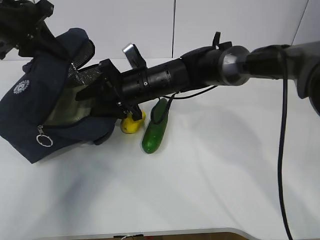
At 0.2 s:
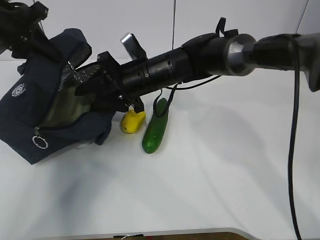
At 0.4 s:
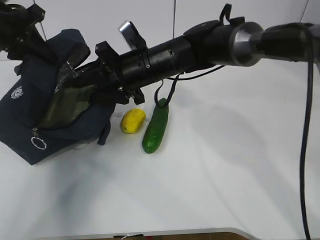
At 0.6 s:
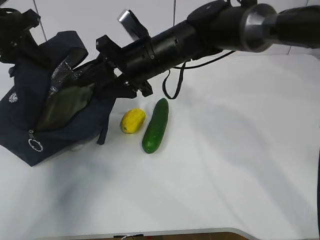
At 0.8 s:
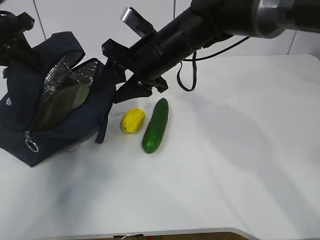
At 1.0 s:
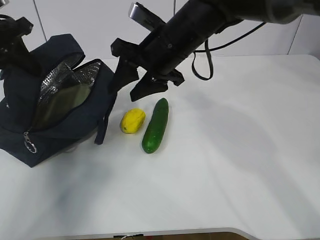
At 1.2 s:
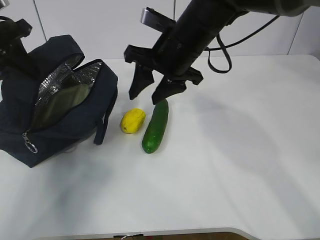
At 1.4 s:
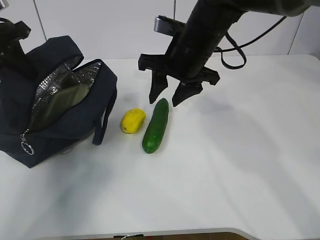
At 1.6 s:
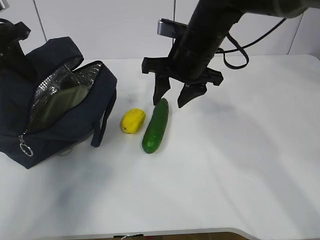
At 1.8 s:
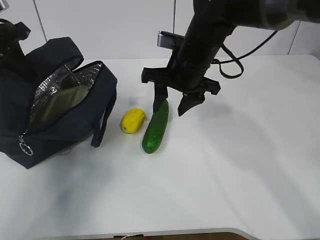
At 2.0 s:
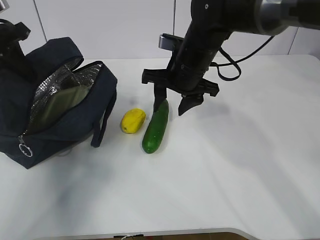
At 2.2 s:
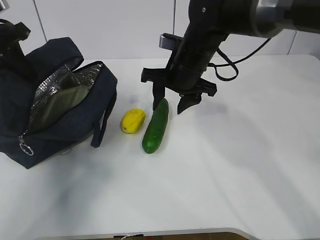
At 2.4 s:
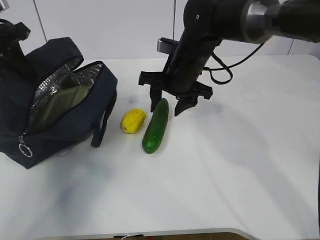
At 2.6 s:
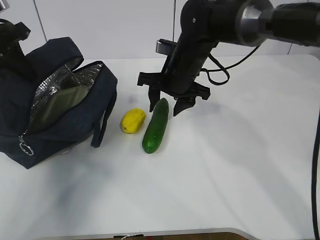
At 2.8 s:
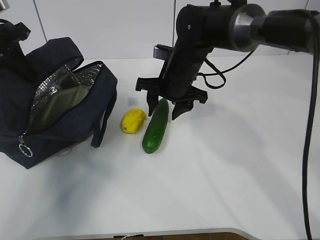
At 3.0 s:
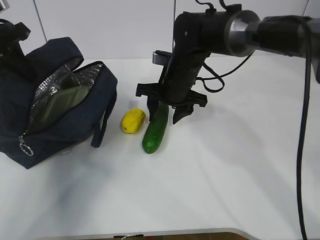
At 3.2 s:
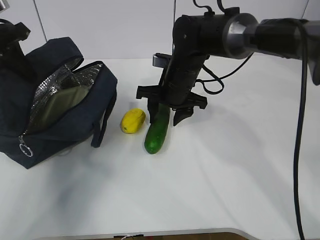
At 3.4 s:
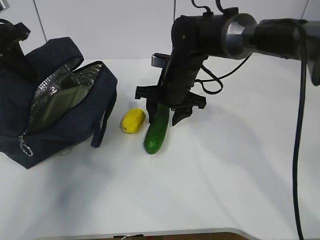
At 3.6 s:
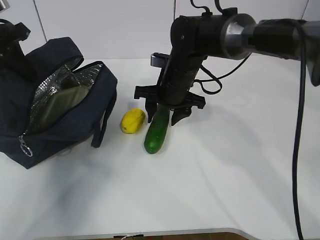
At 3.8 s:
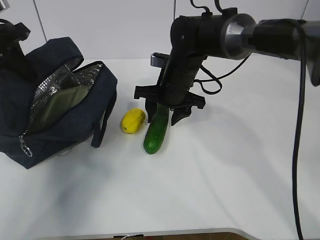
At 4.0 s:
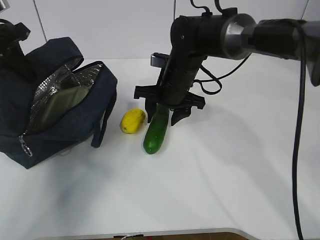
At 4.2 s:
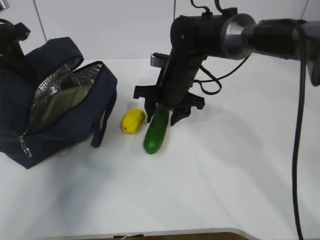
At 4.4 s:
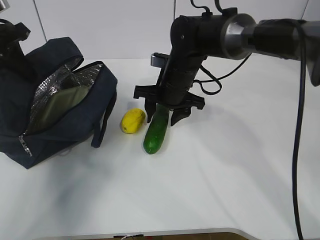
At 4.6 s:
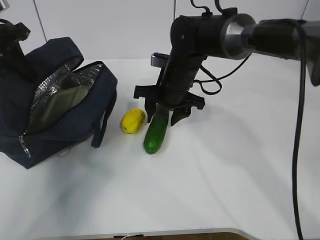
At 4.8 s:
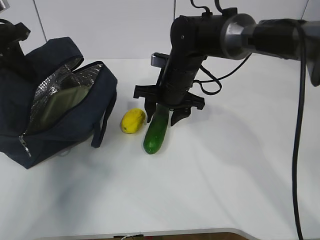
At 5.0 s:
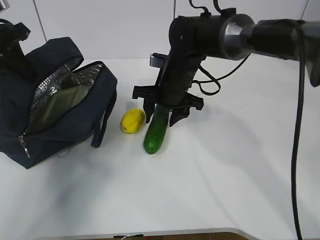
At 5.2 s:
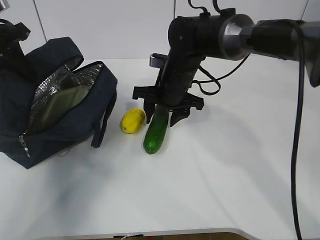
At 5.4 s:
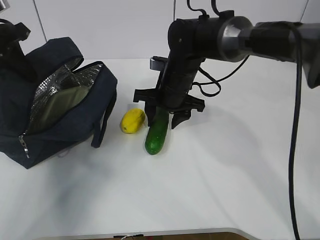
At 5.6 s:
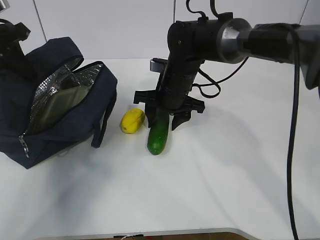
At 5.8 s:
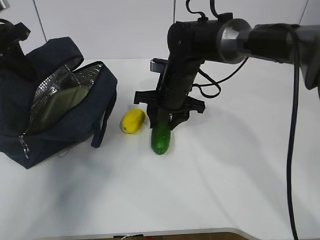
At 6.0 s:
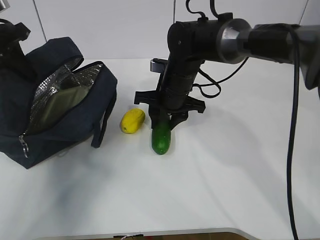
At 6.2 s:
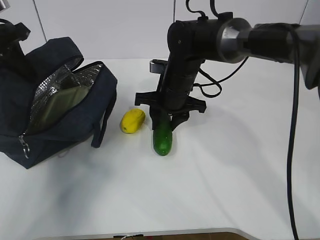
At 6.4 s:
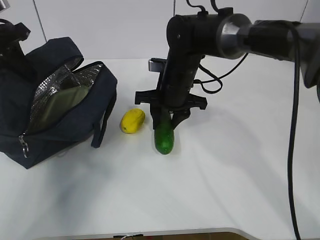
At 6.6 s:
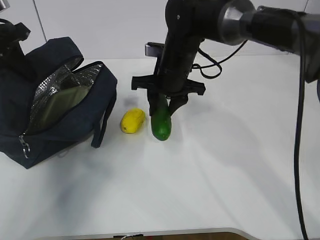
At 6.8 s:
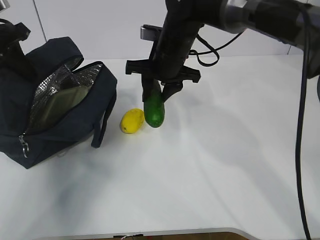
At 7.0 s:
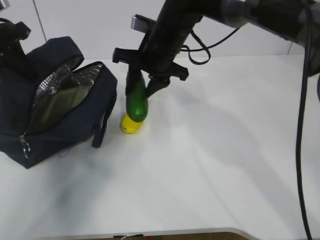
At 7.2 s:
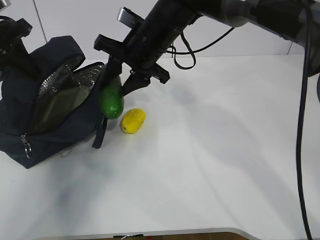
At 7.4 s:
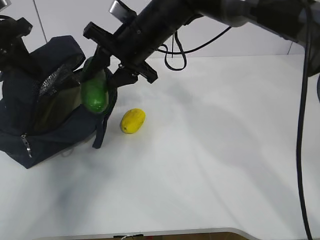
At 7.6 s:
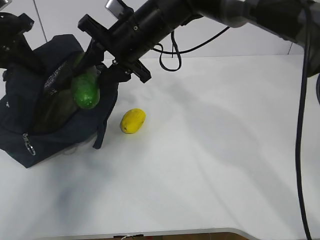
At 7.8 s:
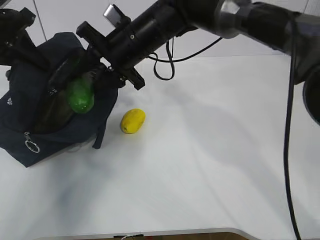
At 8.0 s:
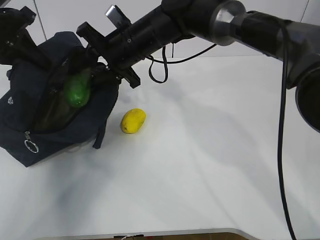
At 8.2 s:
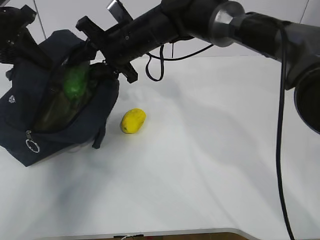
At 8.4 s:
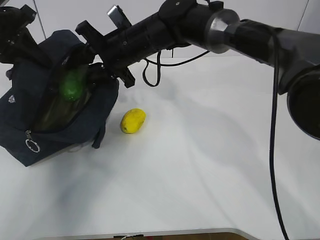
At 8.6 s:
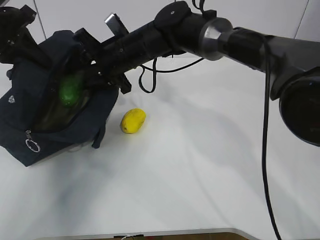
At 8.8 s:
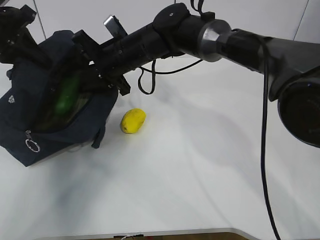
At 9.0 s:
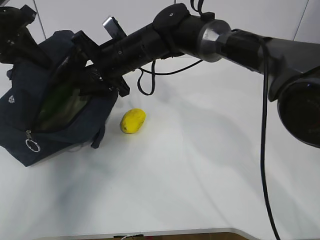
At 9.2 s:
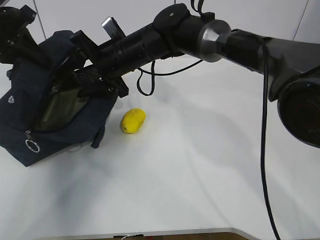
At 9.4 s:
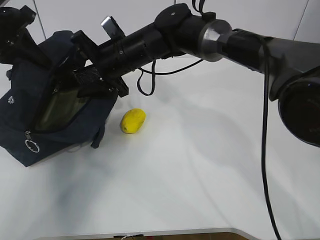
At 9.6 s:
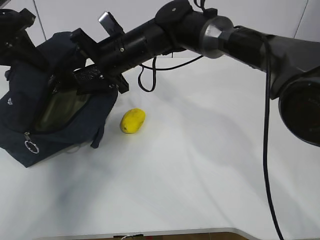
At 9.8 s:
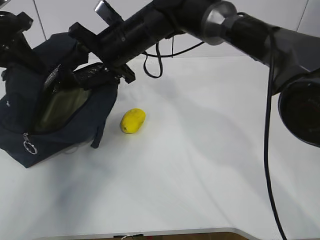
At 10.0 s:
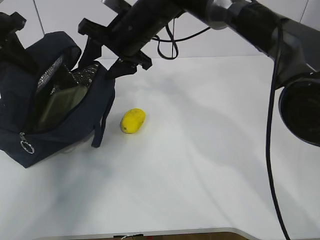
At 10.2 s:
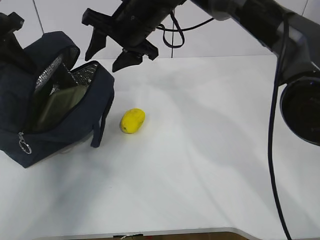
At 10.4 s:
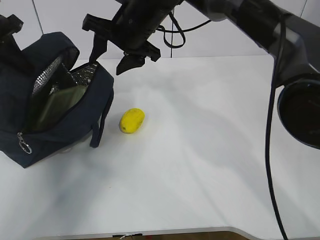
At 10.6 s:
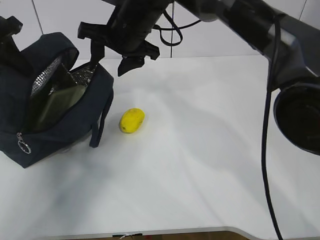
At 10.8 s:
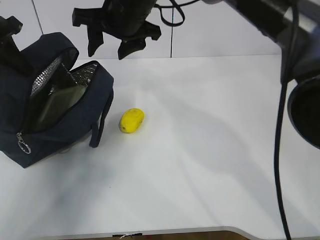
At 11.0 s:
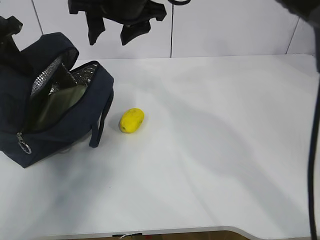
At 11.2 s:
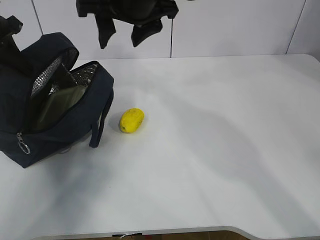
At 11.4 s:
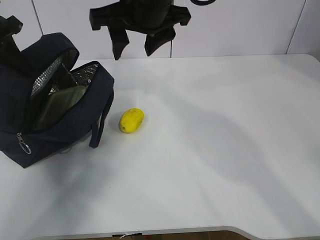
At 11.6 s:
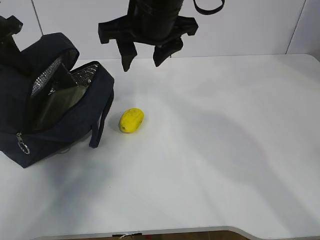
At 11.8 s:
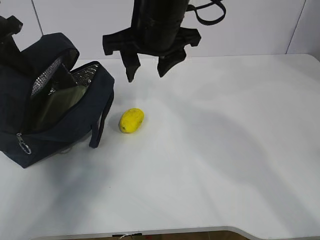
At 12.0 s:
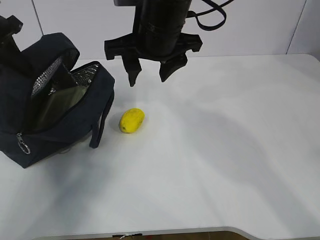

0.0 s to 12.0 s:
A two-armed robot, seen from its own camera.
Step, 1.2 to 3.4 s: Place it into the bag with your right hand.
Step, 3.8 to 10.4 s: Grab the lemon with your right hand.
0.0 to 1.6 s: The right gripper shifts approximately 10 cm upward and to the right.
1.6 to 3.0 s: The right gripper is displaced downward by some 5 cm.
3.0 to 4.4 s: Both grippers stay about where they are.
4.4 to 6.0 s: Both grippers stay put.
6.0 to 7.6 s: The right gripper shifts roughly 10 cm upward and to the left.
7.6 to 9.0 s: The right gripper is displaced downward by roughly 5 cm.
9.0 to 10.4 s: The right gripper shifts some 5 cm upward.
10.4 to 12.0 s: The right gripper heads backward, covering roughly 10 cm.

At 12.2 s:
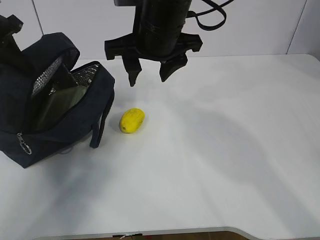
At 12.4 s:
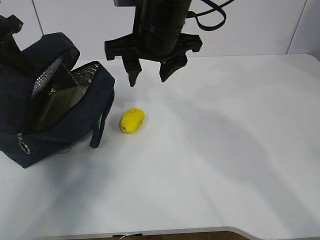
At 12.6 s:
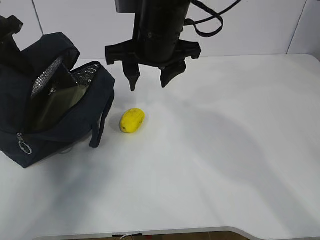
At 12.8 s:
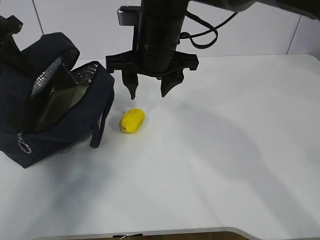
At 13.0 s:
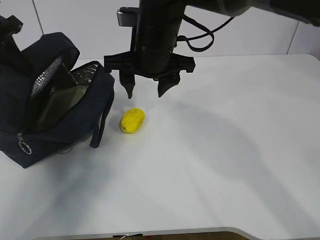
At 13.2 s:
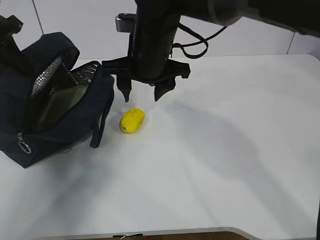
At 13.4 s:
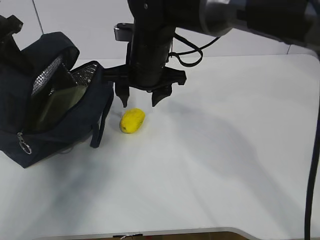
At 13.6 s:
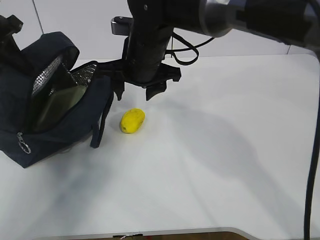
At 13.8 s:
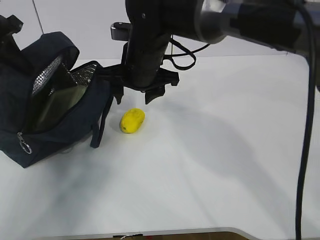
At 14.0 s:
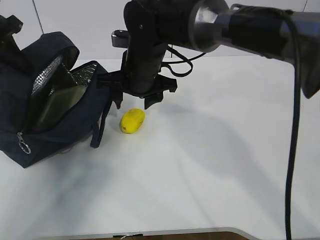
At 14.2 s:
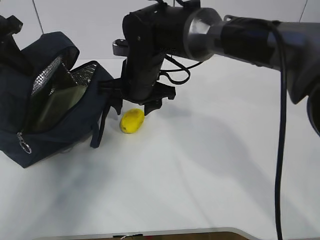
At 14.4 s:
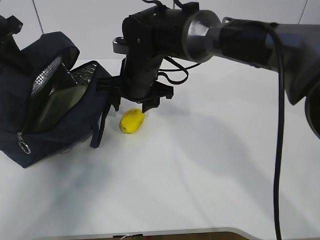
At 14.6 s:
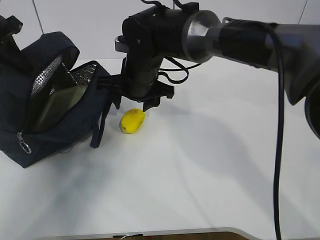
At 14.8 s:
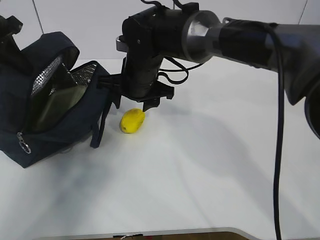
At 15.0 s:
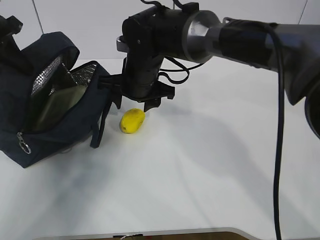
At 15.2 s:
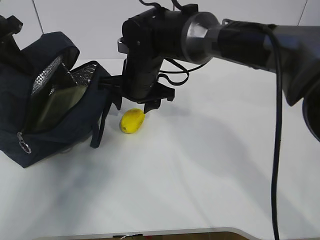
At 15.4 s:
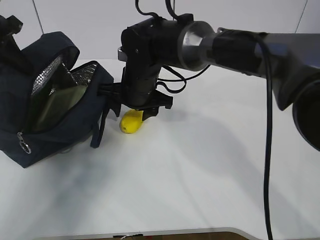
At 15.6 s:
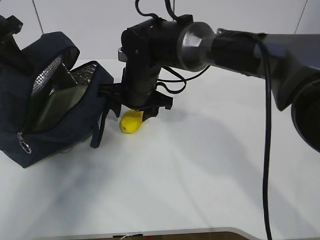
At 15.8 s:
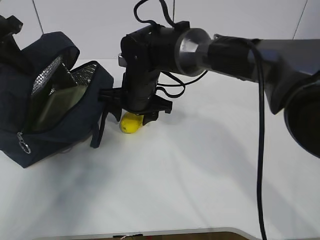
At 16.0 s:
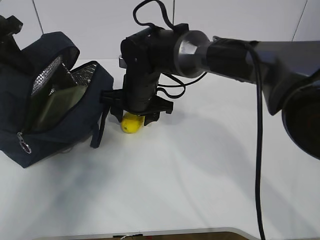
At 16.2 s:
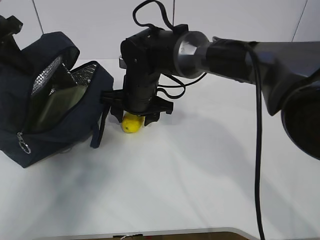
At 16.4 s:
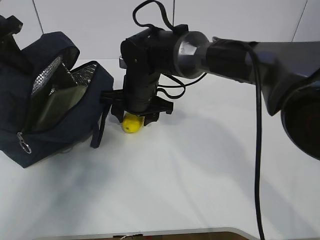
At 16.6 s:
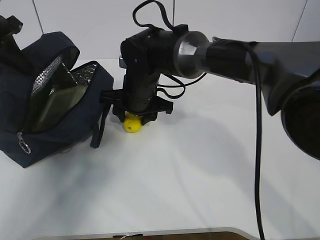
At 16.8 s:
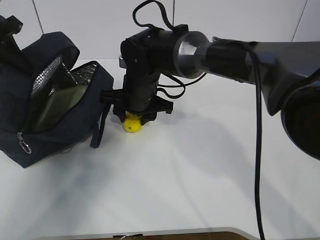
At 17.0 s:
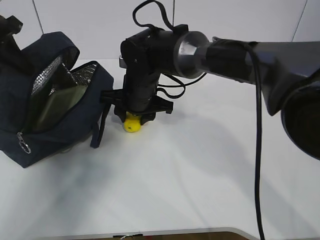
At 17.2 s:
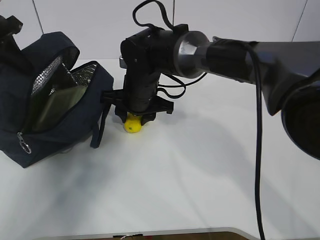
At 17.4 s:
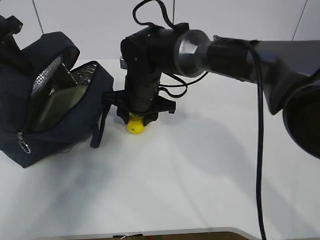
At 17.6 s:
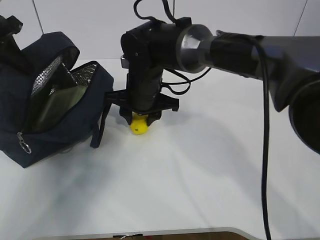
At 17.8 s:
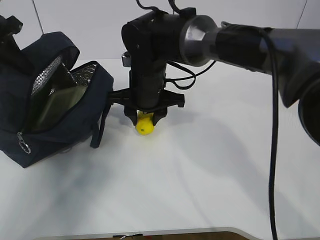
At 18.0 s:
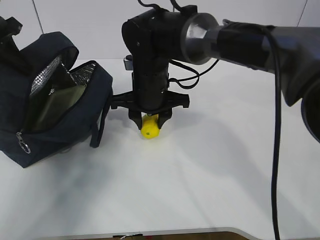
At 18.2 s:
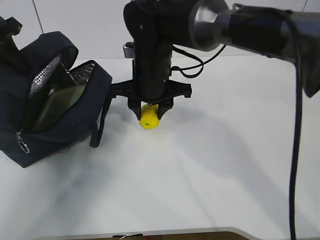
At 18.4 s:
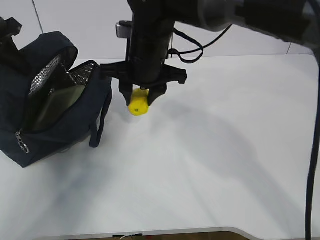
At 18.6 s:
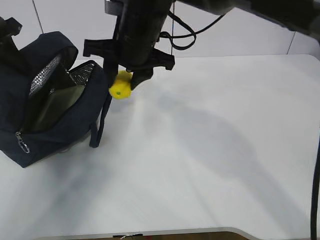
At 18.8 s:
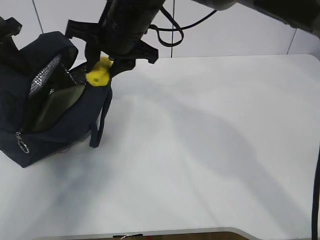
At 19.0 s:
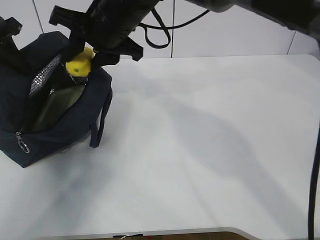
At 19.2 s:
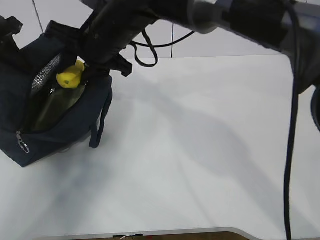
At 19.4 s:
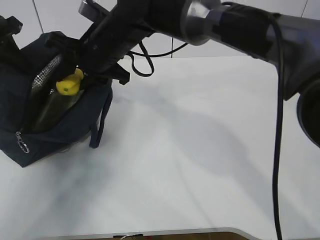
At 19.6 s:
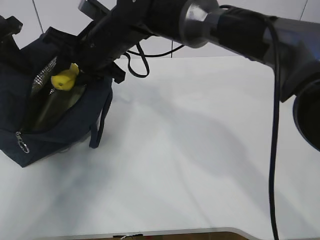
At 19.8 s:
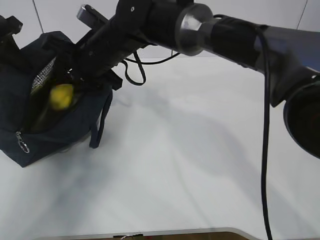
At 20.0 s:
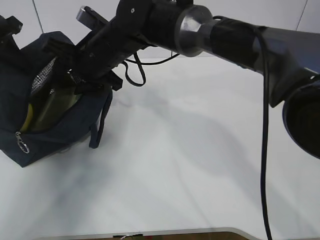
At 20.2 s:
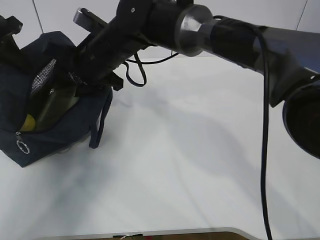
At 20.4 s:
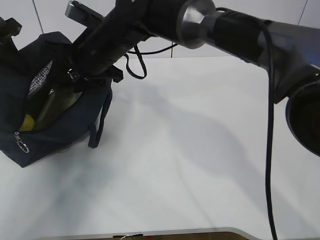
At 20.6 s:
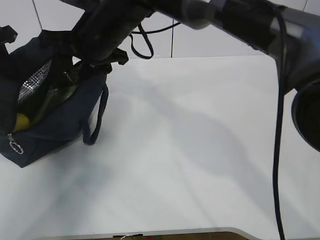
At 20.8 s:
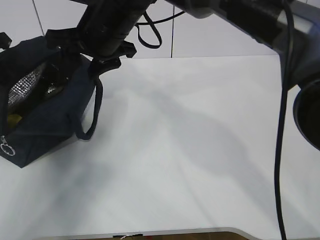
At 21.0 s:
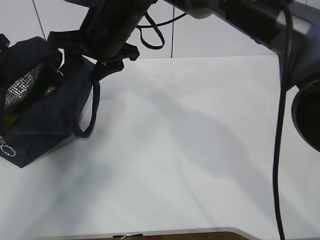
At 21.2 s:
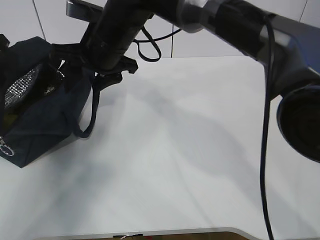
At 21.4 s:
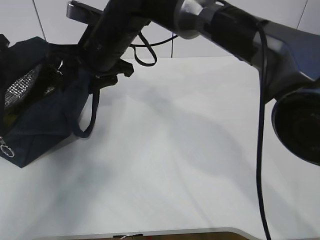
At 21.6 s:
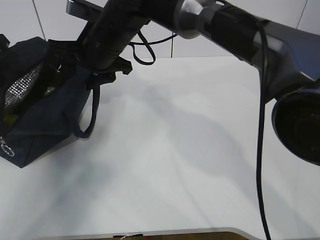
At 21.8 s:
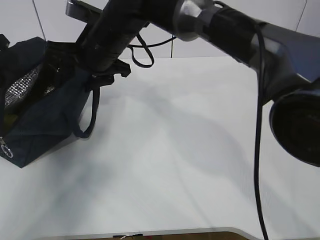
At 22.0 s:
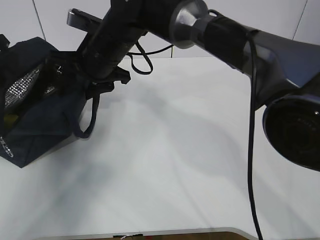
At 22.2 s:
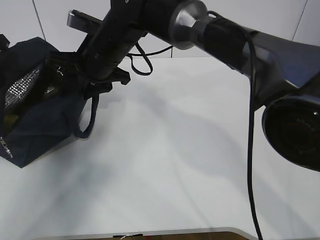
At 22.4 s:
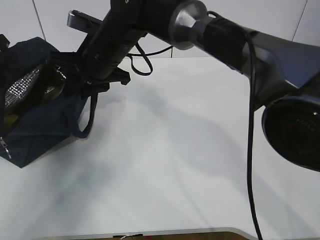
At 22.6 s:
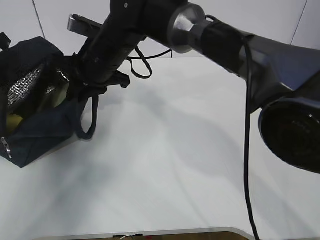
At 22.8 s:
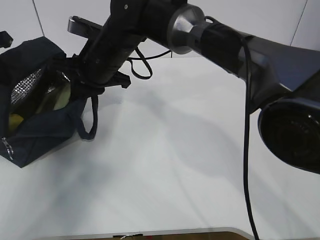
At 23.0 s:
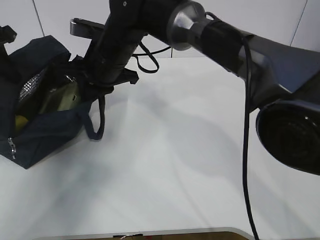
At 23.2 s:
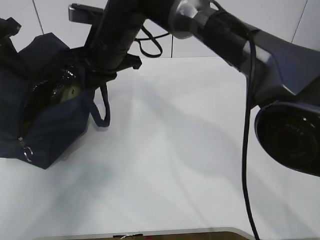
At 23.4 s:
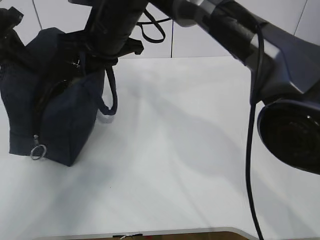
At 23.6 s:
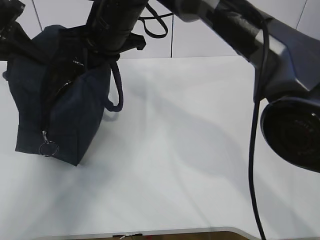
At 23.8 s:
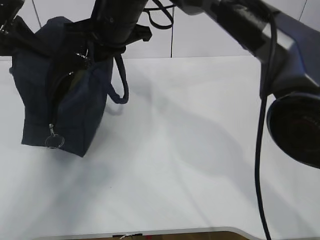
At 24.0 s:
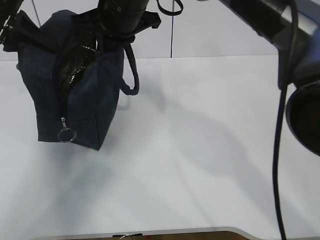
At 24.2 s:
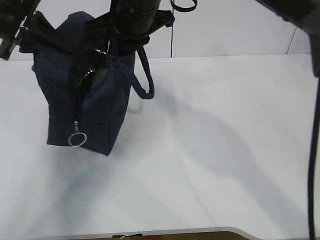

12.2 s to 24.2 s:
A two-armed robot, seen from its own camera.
Step, 12.8 to 14.8 s: Grab the lunch bag with your right hand.
Step, 15.0 to 17.8 s: Move the lunch bag to the right.
12.2 to 13.8 s: The right gripper heads downward, covering approximately 5 cm.
13.8 to 15.2 s: The grippers make only small movements.
15.2 to 16.6 s: The grippers stay close to where they were, moving slightly.
16.6 to 18.2 s: The right gripper ends up about 5 cm from where it was.
18.2 to 19.8 s: The right gripper moves to the left, some 5 cm, and moves some 10 cm upward and comes back.
21.2 to 22.6 s: The right gripper closes up.
22.6 to 24.2 s: The right gripper is displaced upward and to the right by approximately 10 cm; the left gripper heads to the right, covering some 5 cm.
